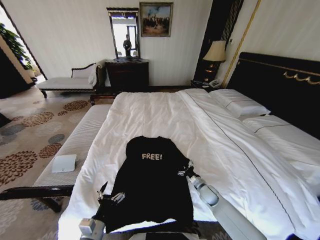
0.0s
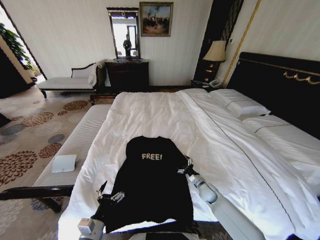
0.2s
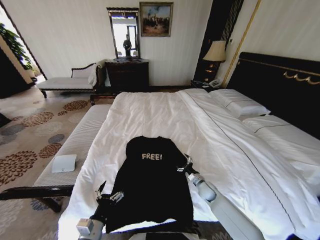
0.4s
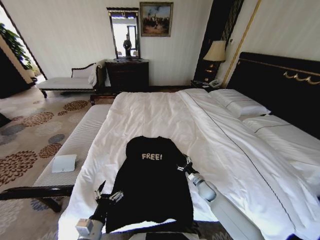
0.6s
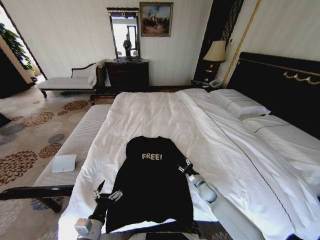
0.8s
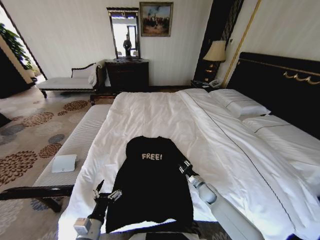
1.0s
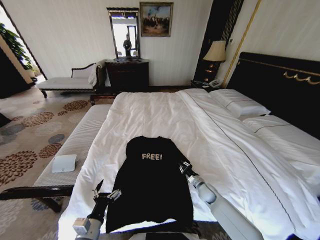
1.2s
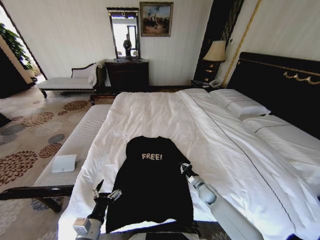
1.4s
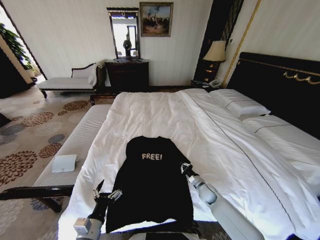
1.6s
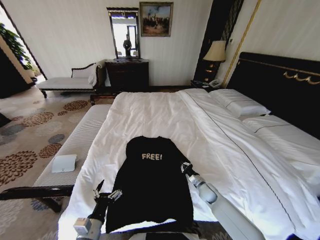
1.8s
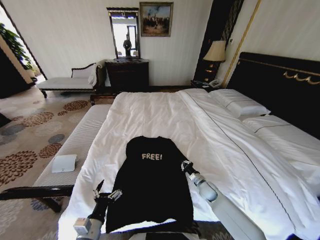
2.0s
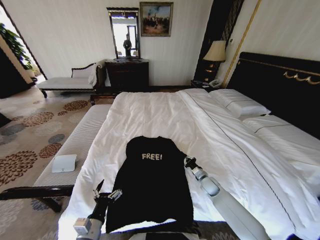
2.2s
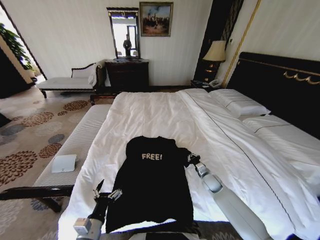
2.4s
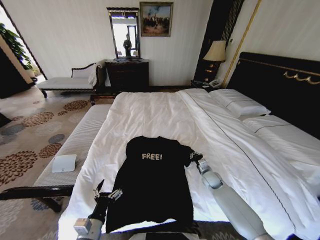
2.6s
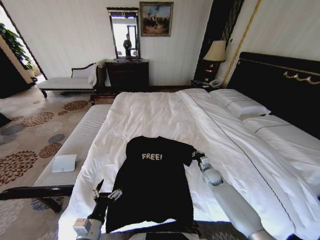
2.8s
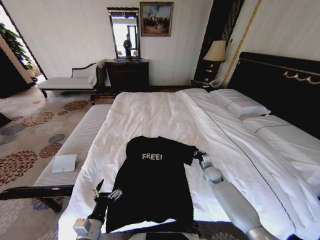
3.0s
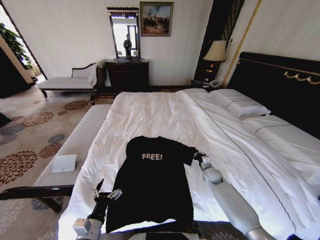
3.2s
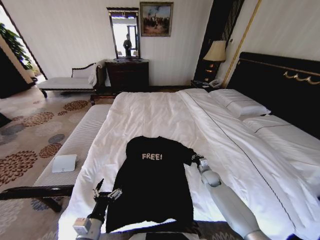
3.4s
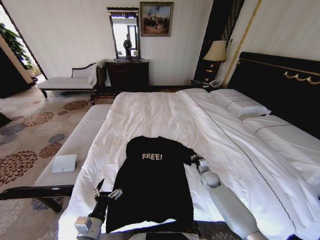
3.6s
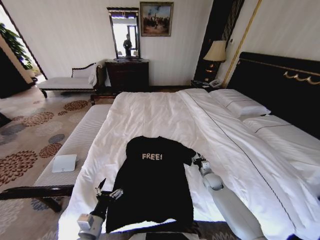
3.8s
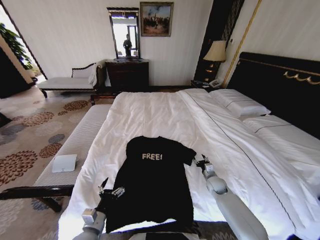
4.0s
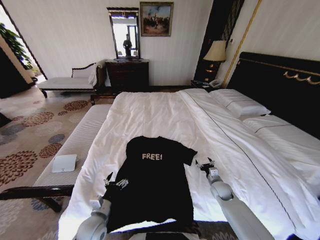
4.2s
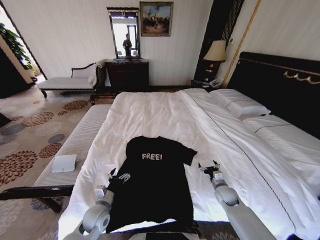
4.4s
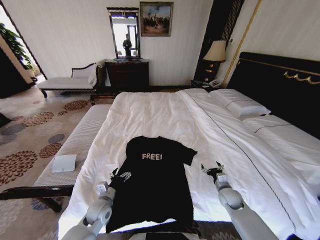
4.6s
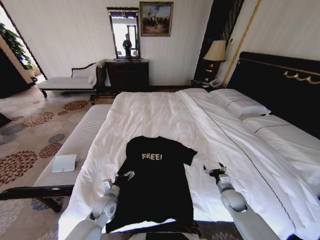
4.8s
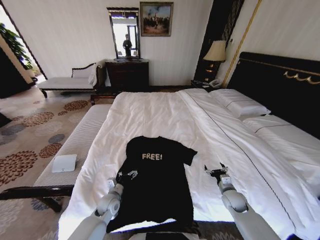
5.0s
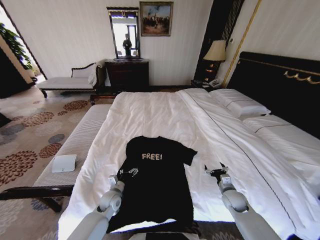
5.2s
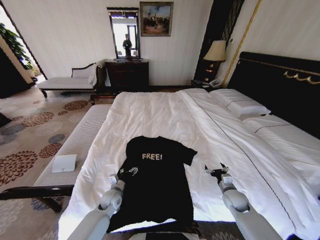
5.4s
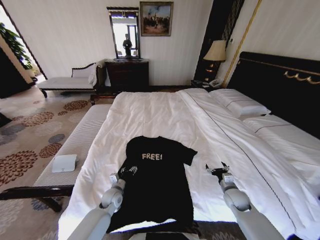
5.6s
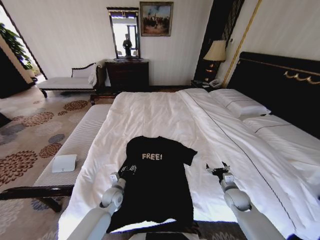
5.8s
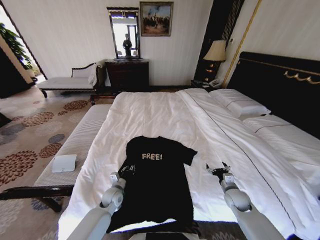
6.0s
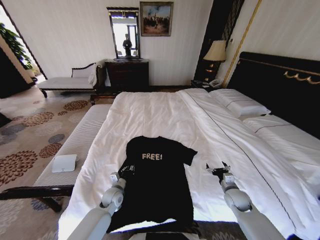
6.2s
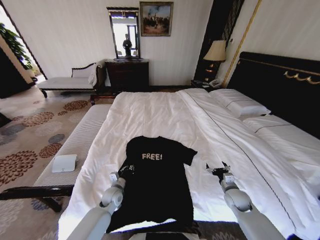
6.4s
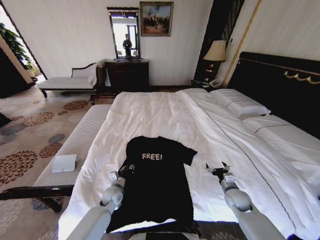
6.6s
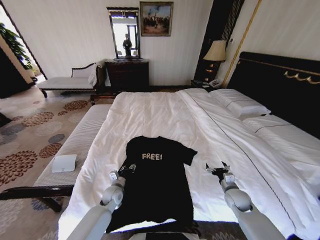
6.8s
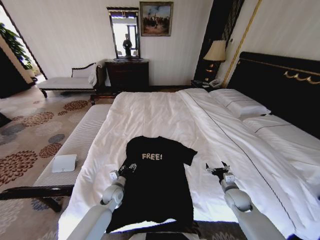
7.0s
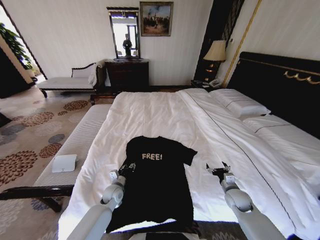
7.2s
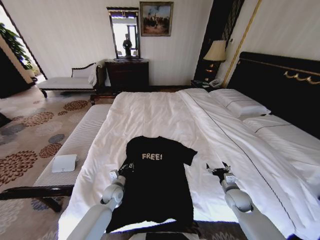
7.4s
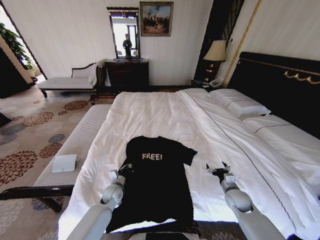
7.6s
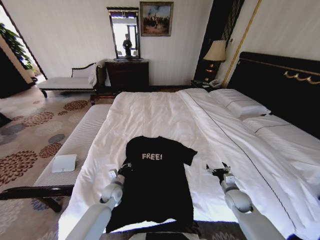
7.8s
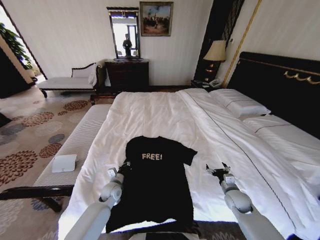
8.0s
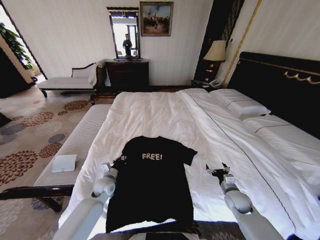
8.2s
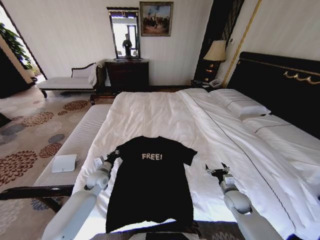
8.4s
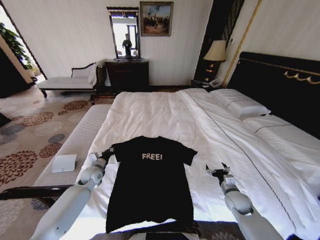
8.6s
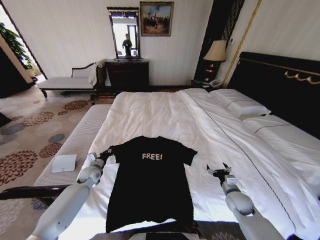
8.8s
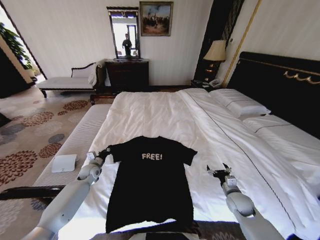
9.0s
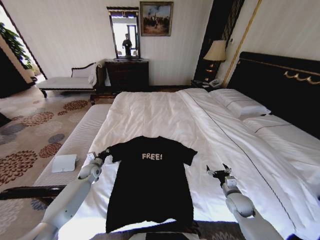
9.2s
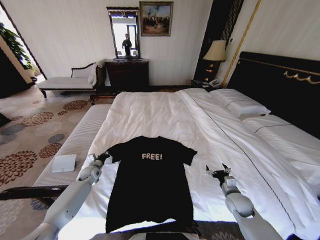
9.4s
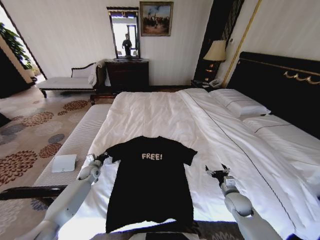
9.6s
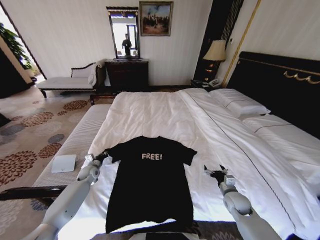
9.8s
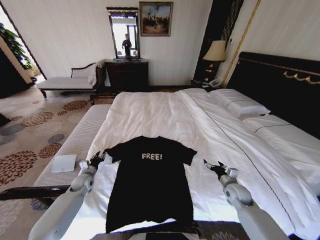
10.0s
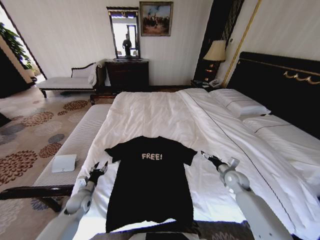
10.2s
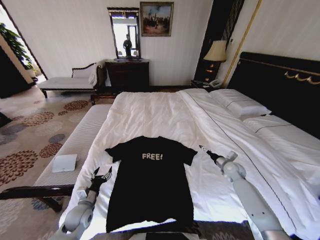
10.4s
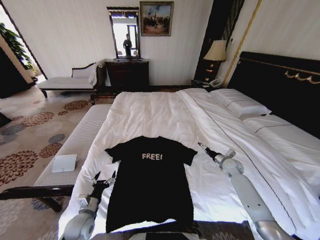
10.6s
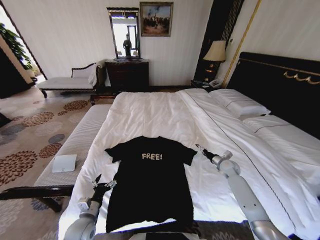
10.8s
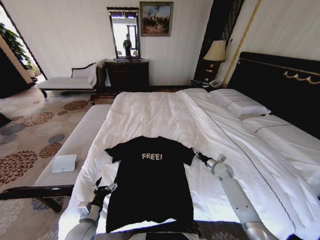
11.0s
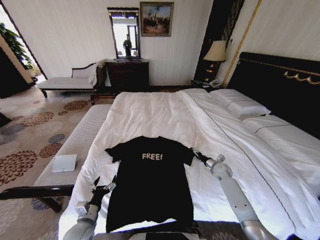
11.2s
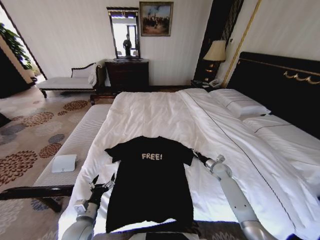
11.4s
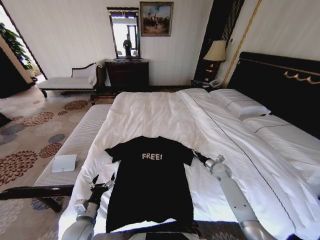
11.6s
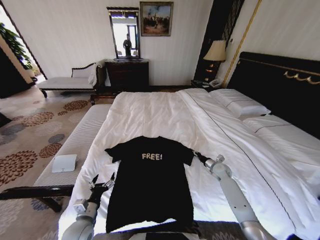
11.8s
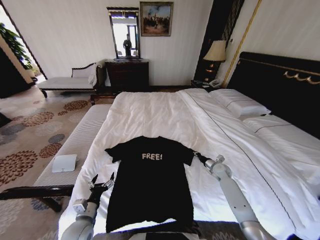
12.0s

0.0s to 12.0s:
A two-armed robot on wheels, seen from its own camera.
Task of the whole recording: Fold the clothes on the bed.
0.0s to 1.6s: The right gripper closes.
1.6s to 3.0s: The right gripper goes approximately 10 cm forward and upward.
3.0s to 4.4s: The right gripper shifts roughly 10 cm backward, and opens up; the left gripper shifts about 10 cm forward.
4.4s to 6.0s: The left gripper moves forward, approximately 10 cm, and closes.
6.0s to 7.6s: The left gripper opens, then closes again.
7.6s to 9.0s: The left gripper heads to the left and forward, covering some 15 cm.
9.0s to 10.4s: The right gripper travels forward by about 15 cm. The left gripper shifts approximately 20 cm backward, and opens up.
10.4s to 12.0s: The right gripper travels downward by roughly 5 cm, and closes up. The left gripper moves backward, about 5 cm.

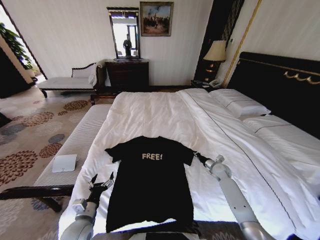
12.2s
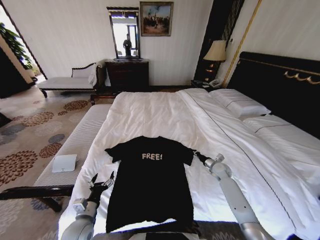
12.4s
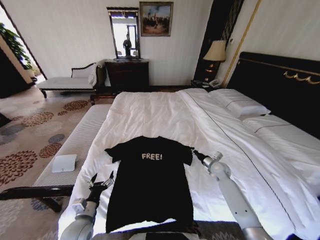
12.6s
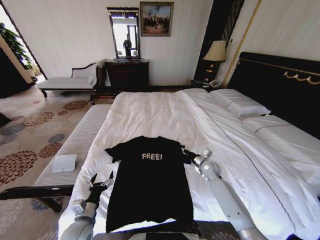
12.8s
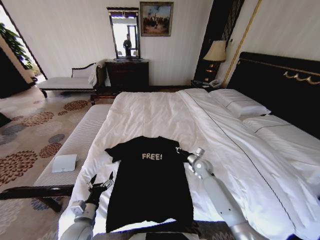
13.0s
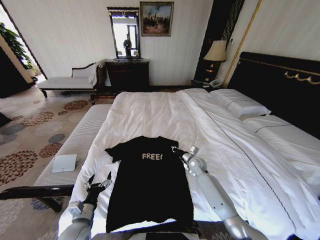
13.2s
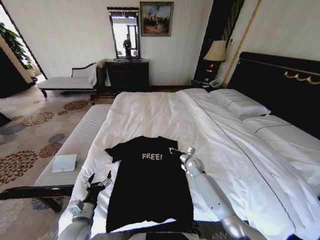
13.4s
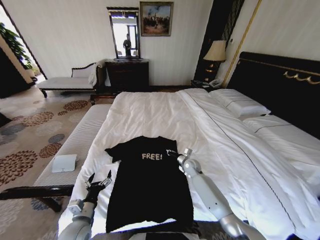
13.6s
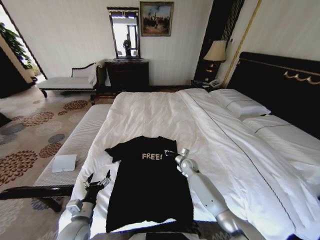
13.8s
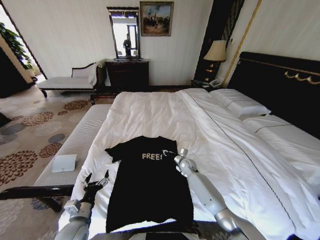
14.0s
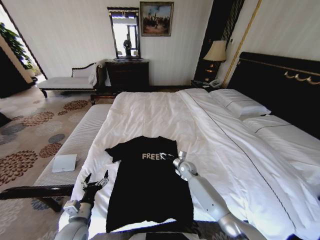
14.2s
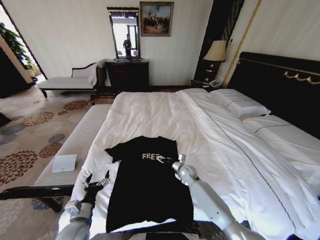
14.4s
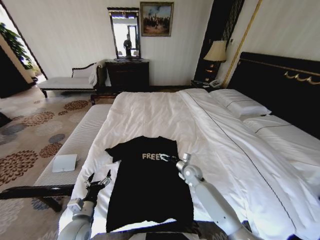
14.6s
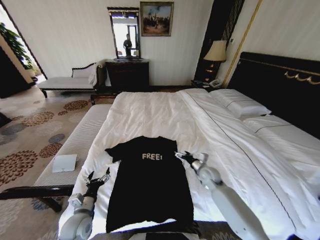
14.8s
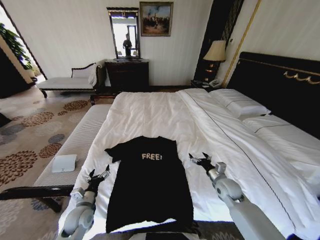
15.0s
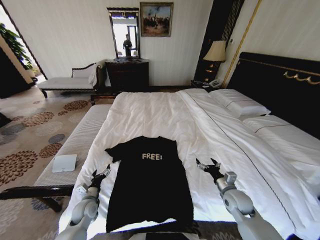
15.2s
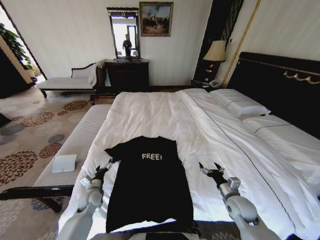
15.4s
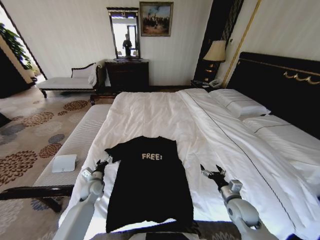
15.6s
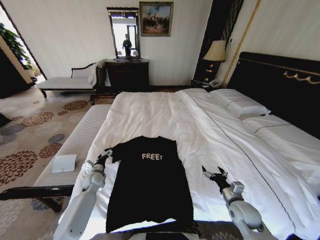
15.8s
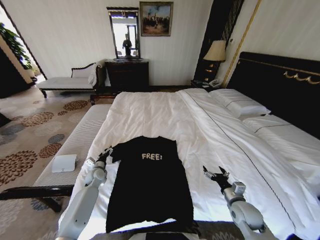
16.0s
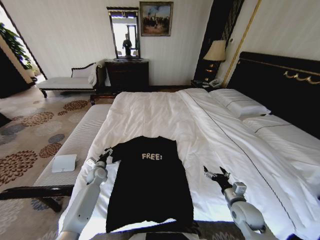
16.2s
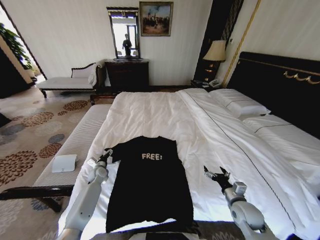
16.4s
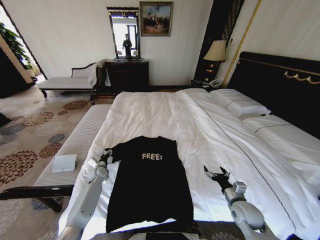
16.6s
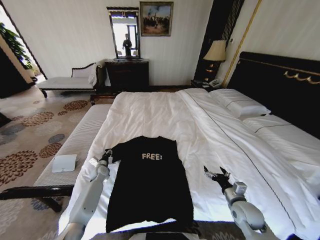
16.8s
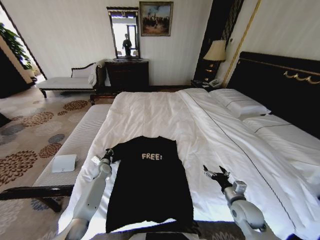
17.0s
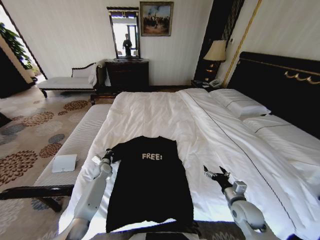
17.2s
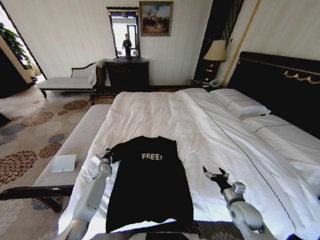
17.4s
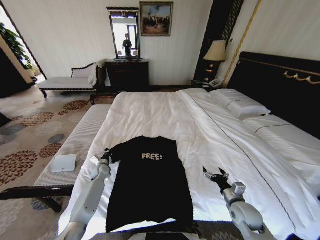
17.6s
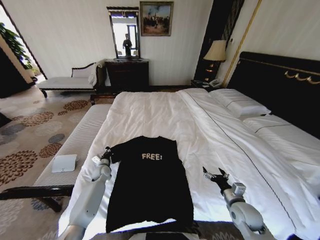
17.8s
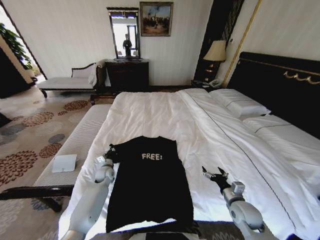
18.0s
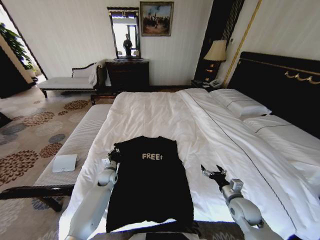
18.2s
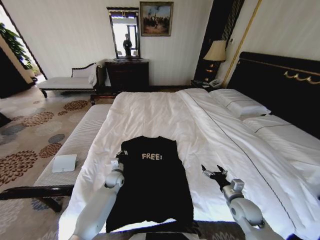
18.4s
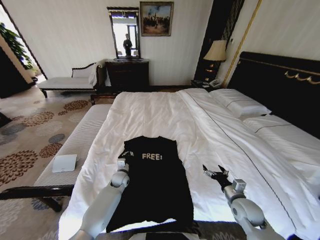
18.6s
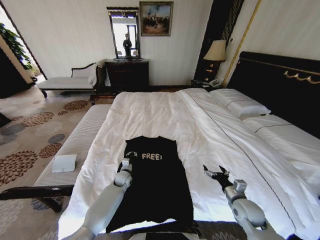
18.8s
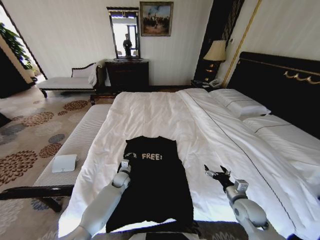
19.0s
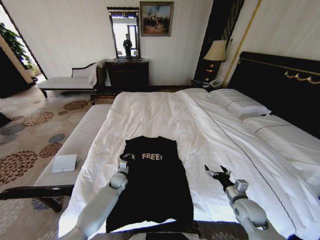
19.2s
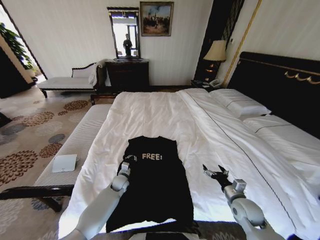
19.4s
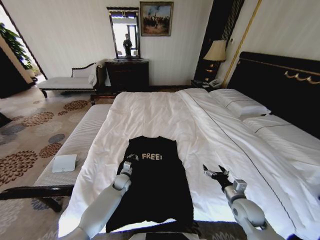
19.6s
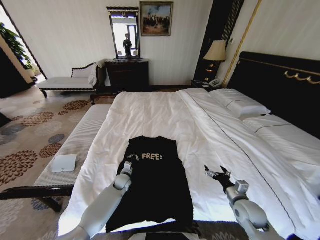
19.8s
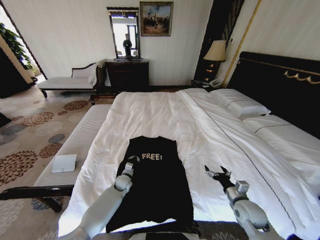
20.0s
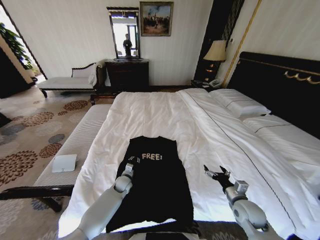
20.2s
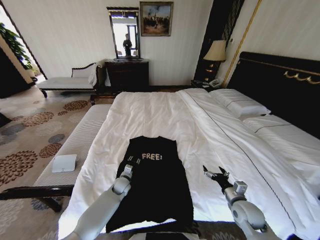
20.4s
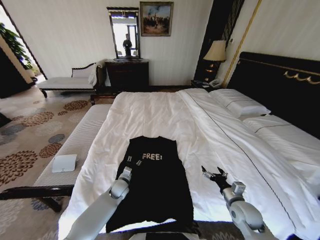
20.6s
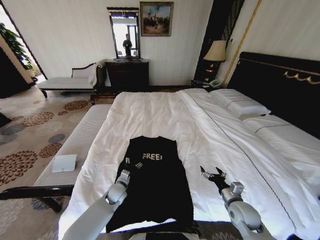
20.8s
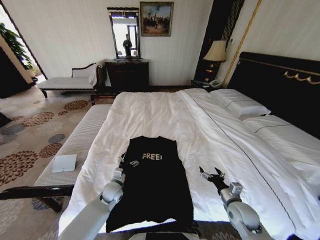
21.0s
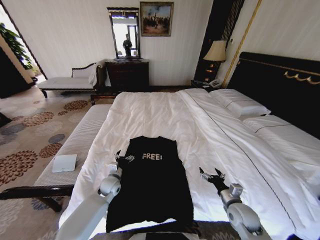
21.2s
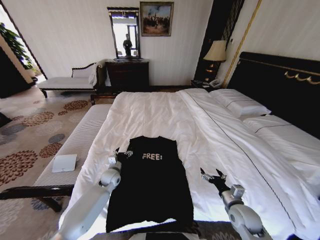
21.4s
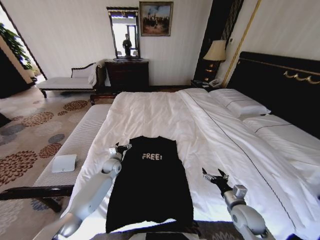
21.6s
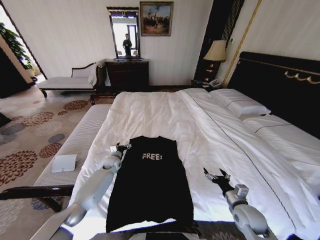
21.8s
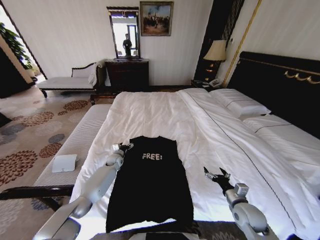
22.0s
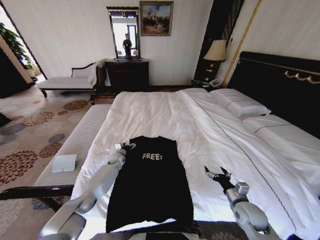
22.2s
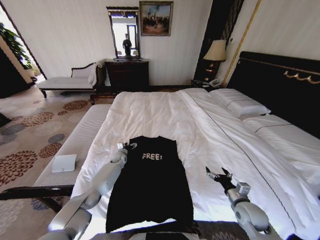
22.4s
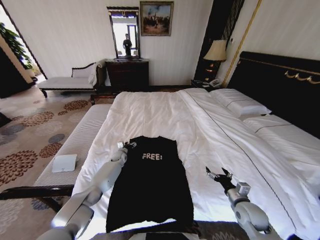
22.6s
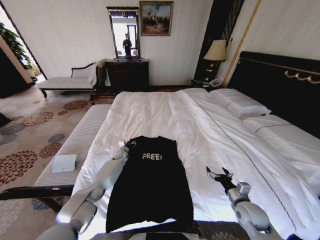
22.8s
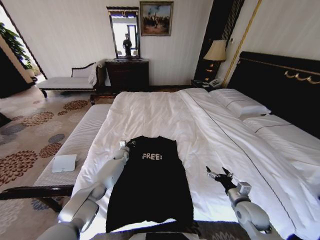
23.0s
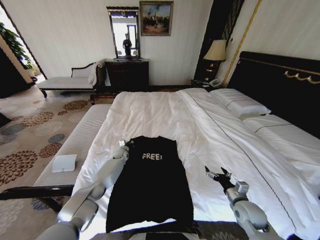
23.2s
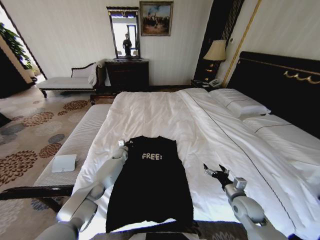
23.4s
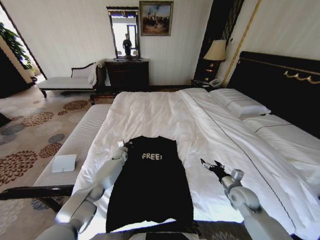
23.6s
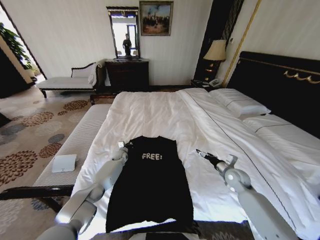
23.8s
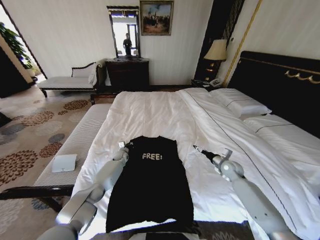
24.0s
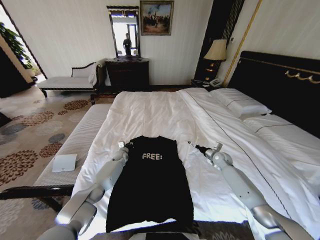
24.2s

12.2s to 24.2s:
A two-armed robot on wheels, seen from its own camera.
Task of the whole recording: Fold the clothes on the bed.
12.2s to 13.8s: The right gripper goes approximately 20 cm to the left.
13.8s to 15.2s: The right gripper shifts approximately 25 cm backward and to the right, and opens up; the left gripper goes roughly 10 cm forward and downward.
15.2s to 16.6s: The left gripper is displaced forward by roughly 20 cm. The right gripper ends up some 5 cm from where it was.
16.6s to 18.2s: The left gripper travels to the right by approximately 5 cm, and closes.
18.2s to 19.8s: The left gripper travels to the right by roughly 10 cm.
19.8s to 21.2s: The left gripper shifts some 5 cm upward, and opens up.
21.2s to 22.6s: The left gripper is displaced forward by about 20 cm.
22.6s to 24.2s: The right gripper heads forward, covering approximately 25 cm; the left gripper closes its fingers.
